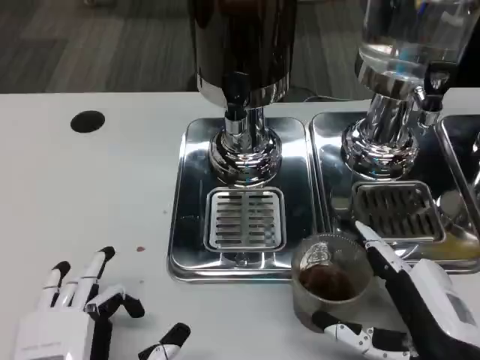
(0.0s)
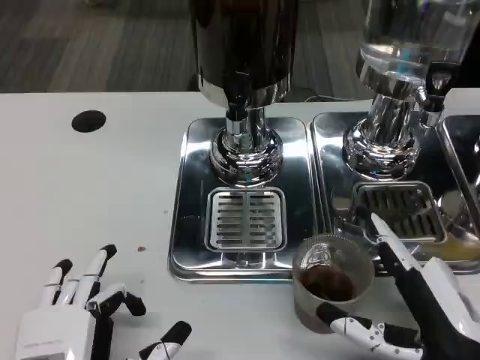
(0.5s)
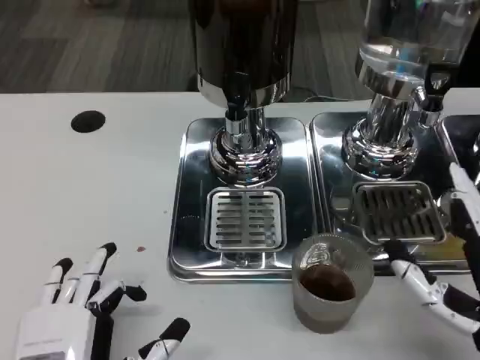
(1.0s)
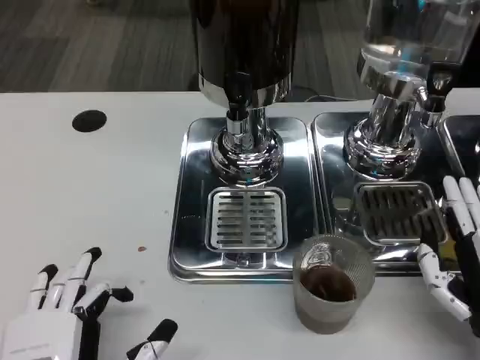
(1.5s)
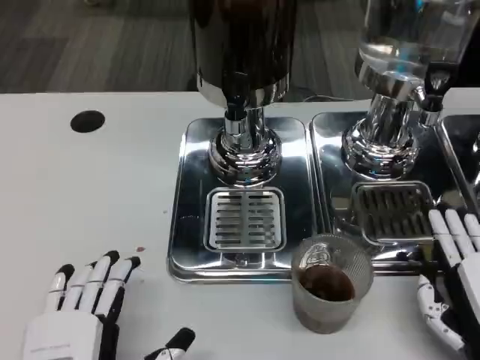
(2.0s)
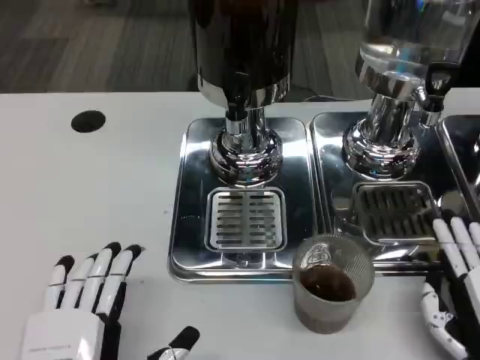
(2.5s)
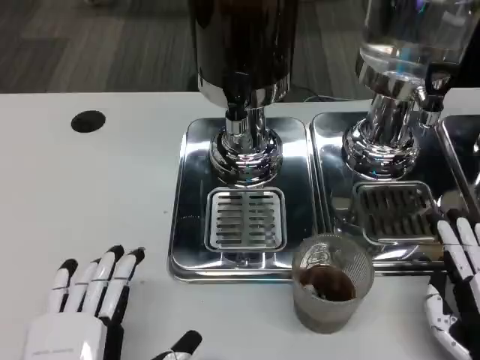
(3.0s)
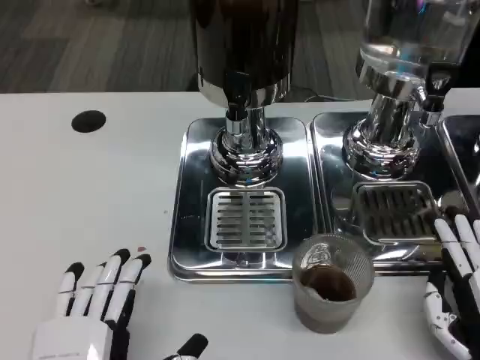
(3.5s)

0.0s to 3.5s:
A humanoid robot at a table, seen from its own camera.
Task of the whole recording: Grasp the cup under the faucet to collect the drink, then remove the cup.
0.0s to 2.0s: The right hand shifts by roughly 5 cm.
2.0s to 3.5s: The hands move only a little.

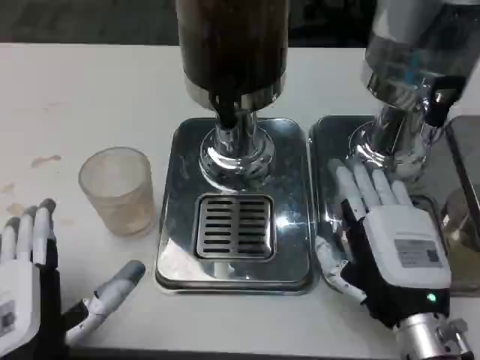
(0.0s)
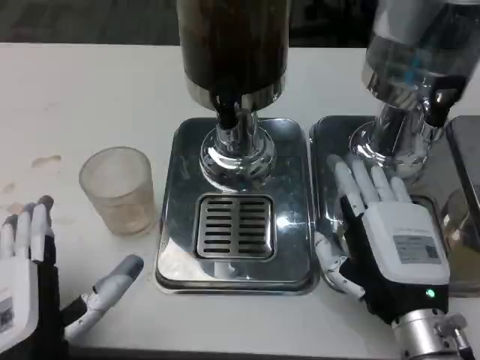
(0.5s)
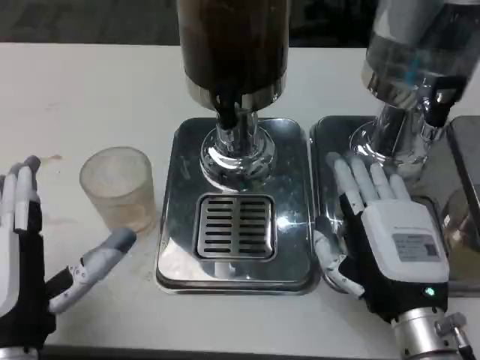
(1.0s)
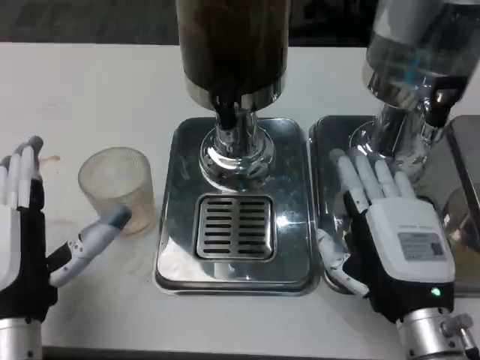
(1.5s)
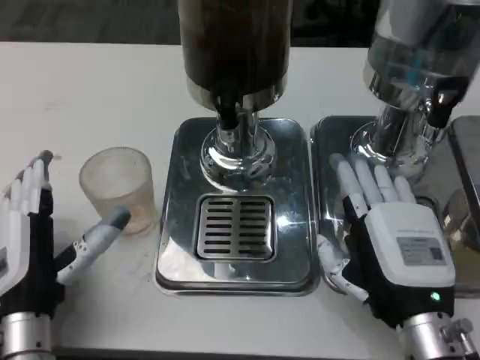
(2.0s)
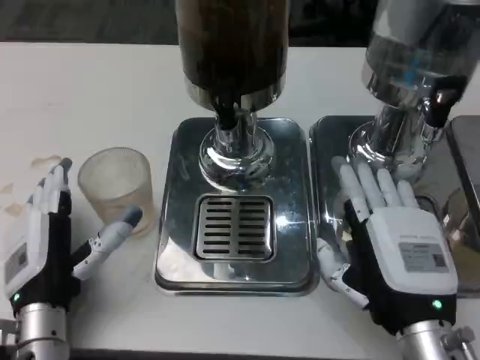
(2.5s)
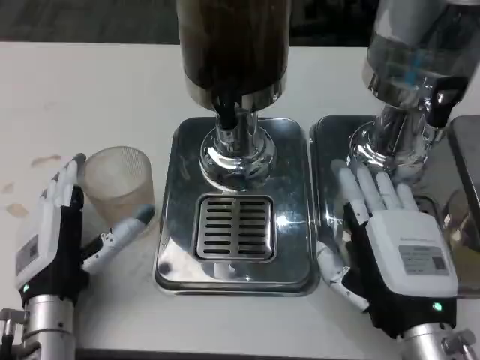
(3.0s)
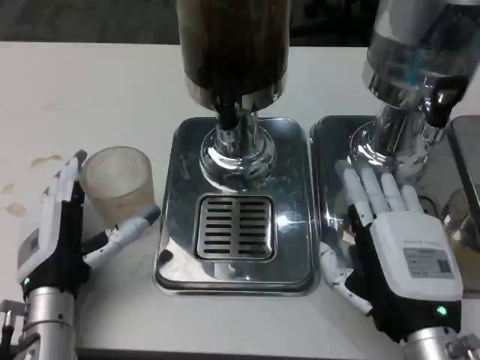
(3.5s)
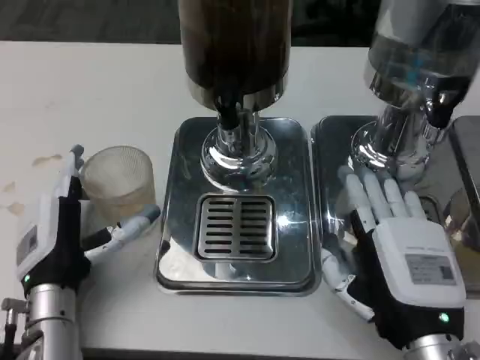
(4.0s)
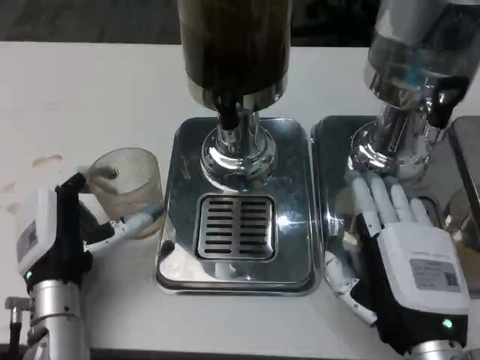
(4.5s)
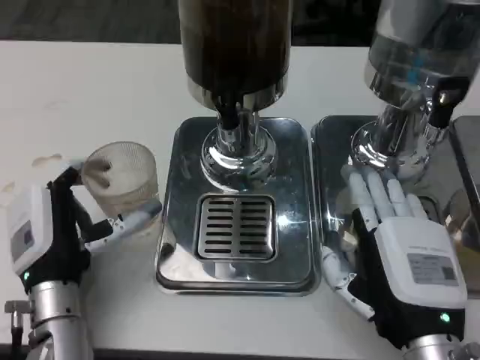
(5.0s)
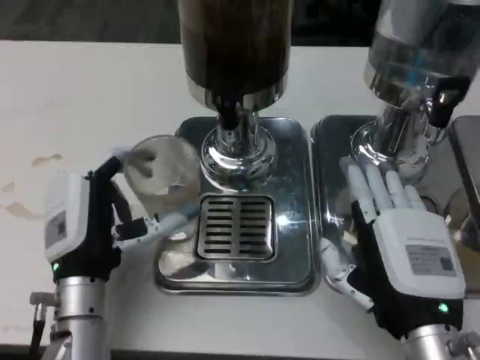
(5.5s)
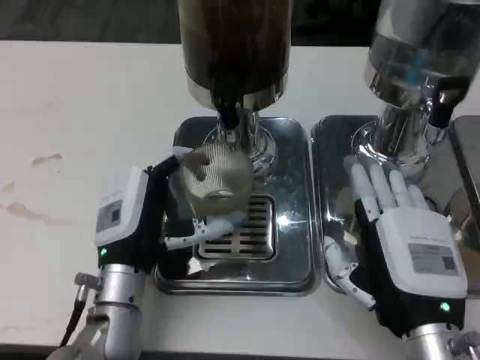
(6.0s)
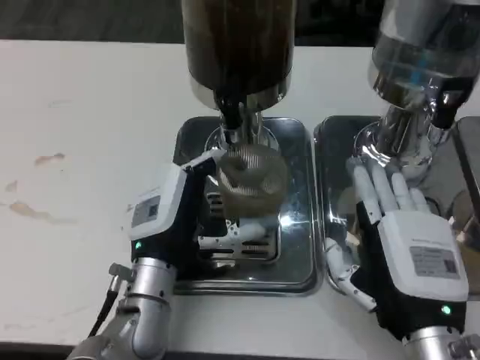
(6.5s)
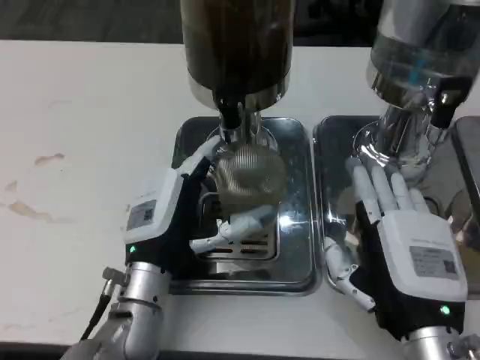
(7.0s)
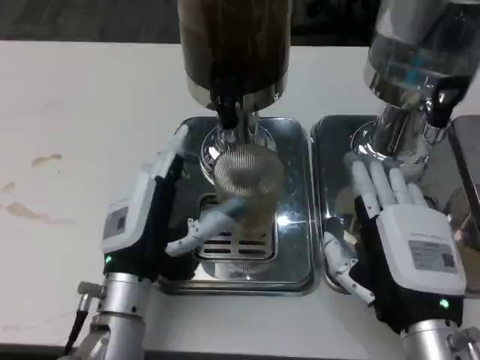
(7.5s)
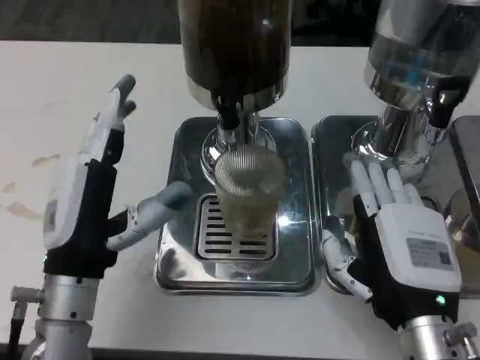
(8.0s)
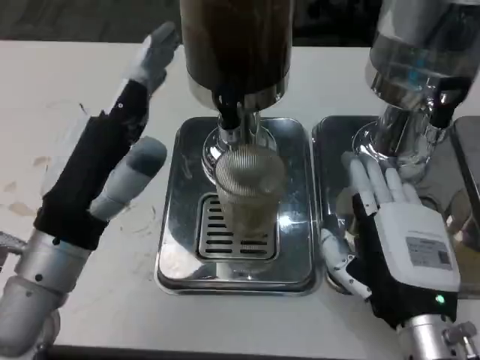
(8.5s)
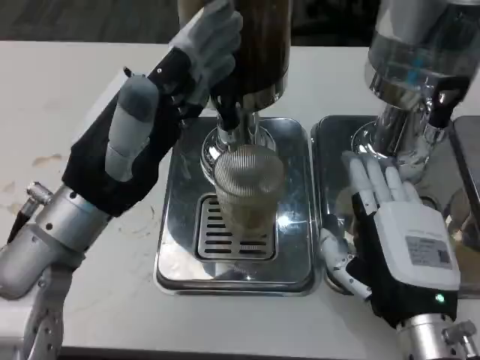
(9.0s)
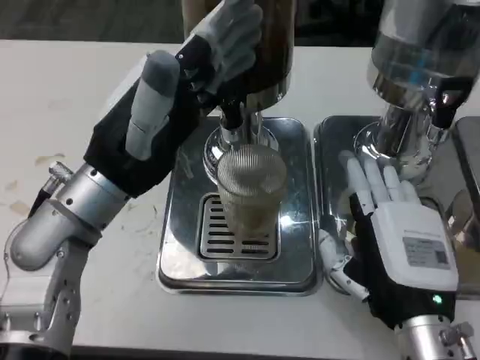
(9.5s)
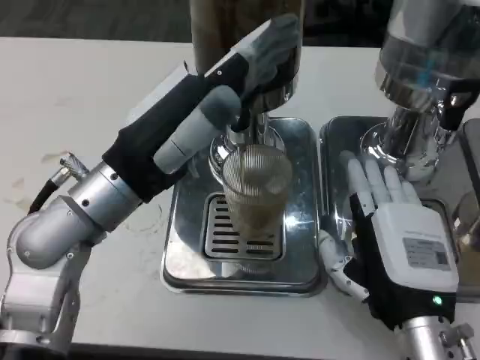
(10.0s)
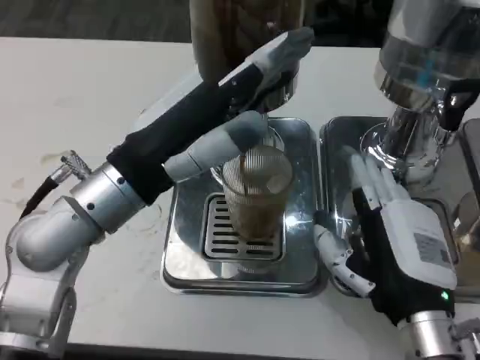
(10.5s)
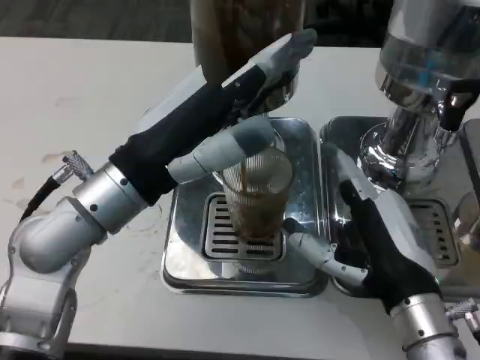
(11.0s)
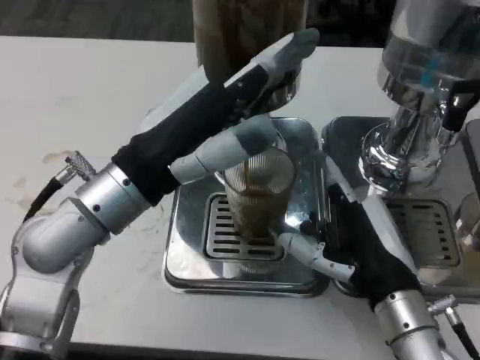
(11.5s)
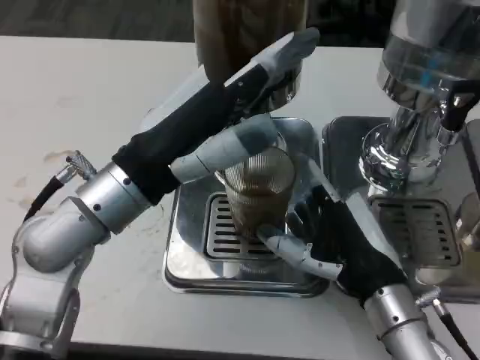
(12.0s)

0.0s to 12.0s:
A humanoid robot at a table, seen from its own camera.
Task of the whole recording: Grasp the cup under the faucet to collect the drink, then remove the cup.
0.0s to 2.0s: The left hand shifts roughly 5 cm forward.
2.0s to 4.0s: The hands make only small movements.
4.0s to 6.0s: The left hand shifts about 5 cm to the right.
6.0s to 8.0s: The left hand shifts by some 5 cm.
8.0s to 10.0s: The left hand shifts some 10 cm upward and forward.

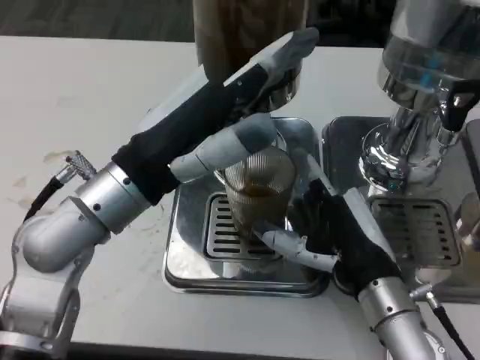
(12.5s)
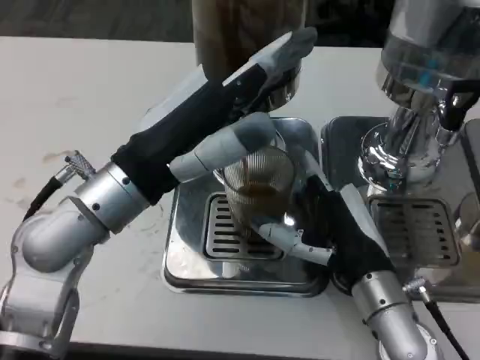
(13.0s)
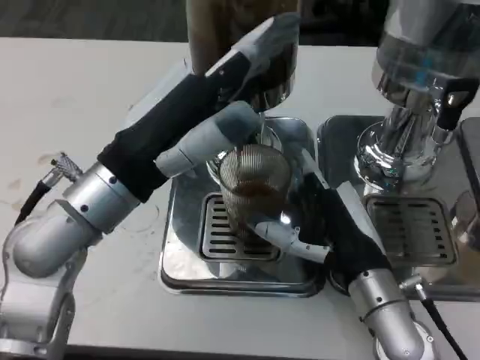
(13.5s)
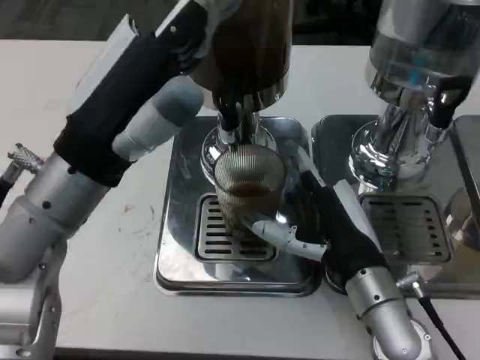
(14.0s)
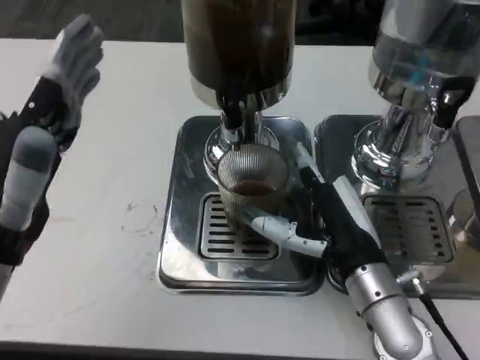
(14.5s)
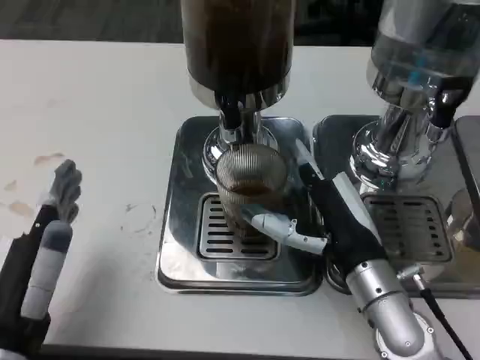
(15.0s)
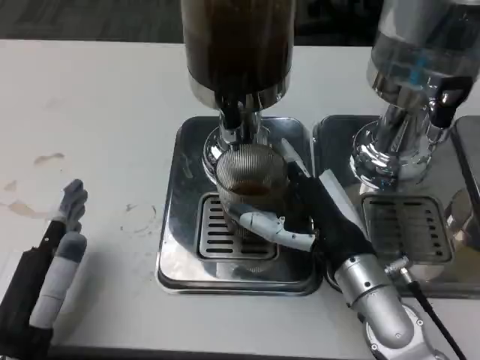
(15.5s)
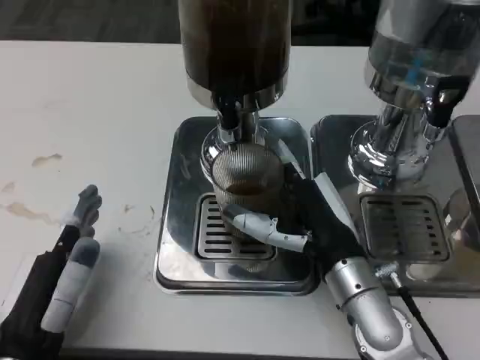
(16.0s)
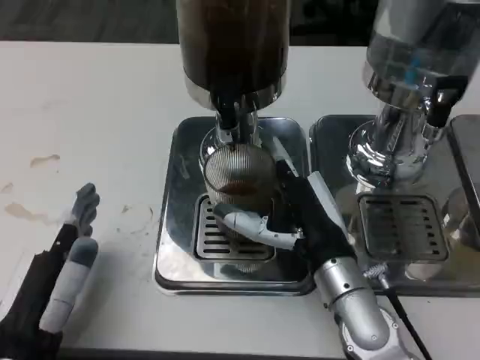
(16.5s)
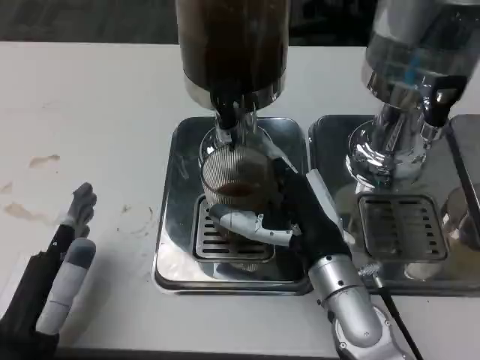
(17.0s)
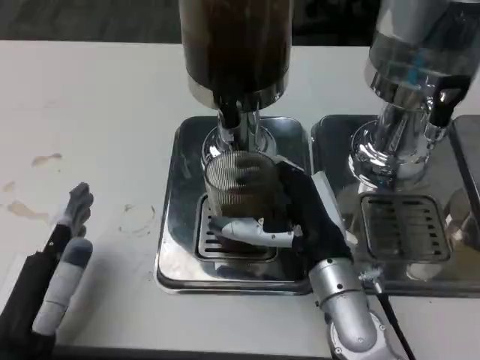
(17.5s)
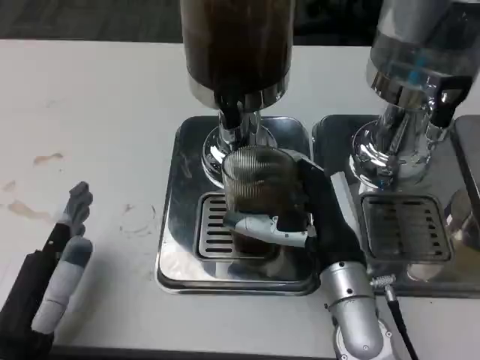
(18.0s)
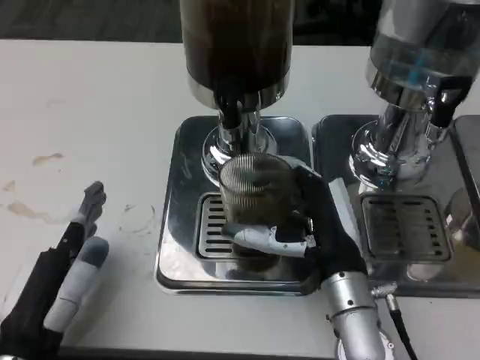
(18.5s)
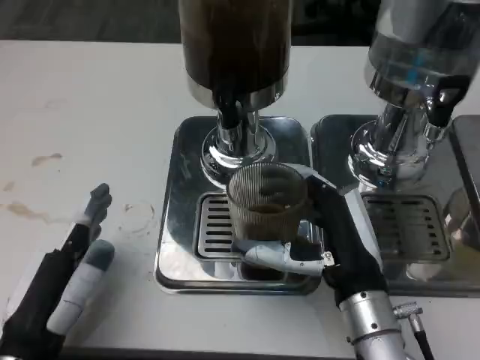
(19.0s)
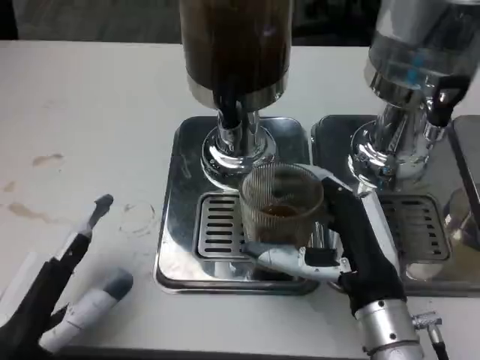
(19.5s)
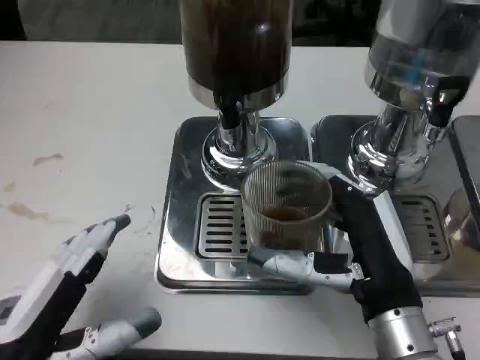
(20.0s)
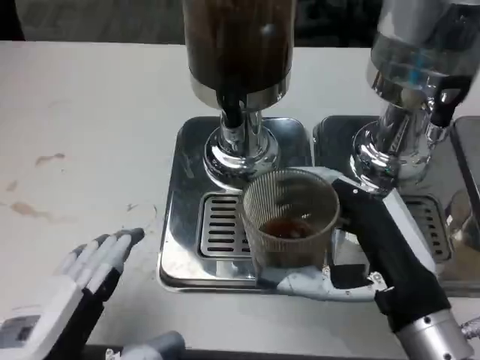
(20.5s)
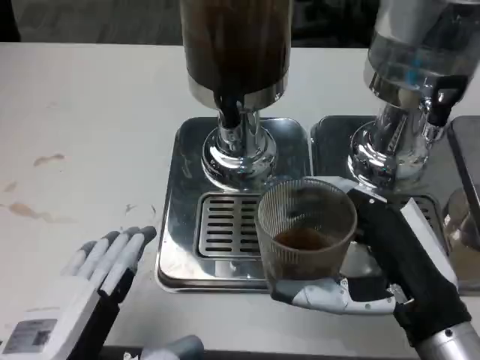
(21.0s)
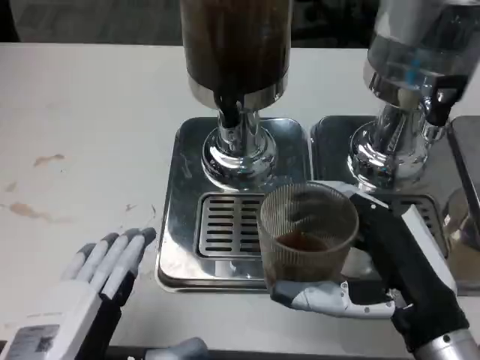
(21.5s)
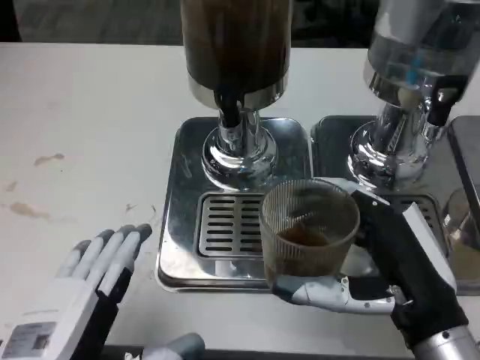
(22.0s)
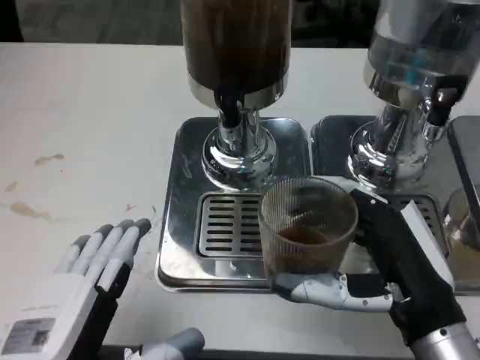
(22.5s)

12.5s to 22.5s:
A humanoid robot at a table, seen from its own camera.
Task of the whole recording: Grasp the cup under the faucet to collect the drink, then remove the cup.
12.5s to 14.5s: The left hand heads to the left and backward, covering approximately 10 cm.
14.5s to 16.5s: The left hand moves downward, about 10 cm.
16.5s to 18.5s: The hands stay close to where they were, moving slightly.
18.5s to 20.5s: The left hand changes place by some 5 cm. The right hand shifts roughly 10 cm backward, to the right and upward.
